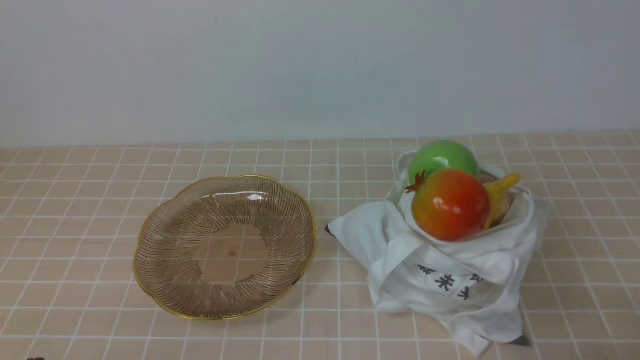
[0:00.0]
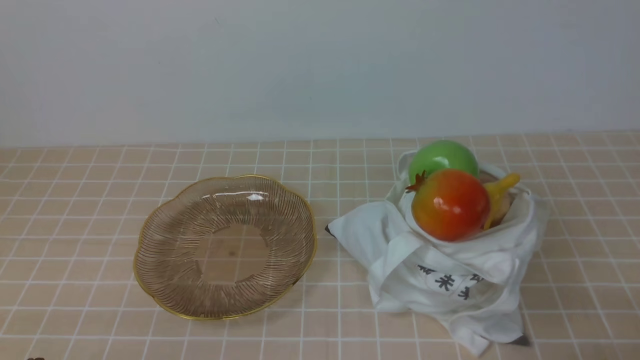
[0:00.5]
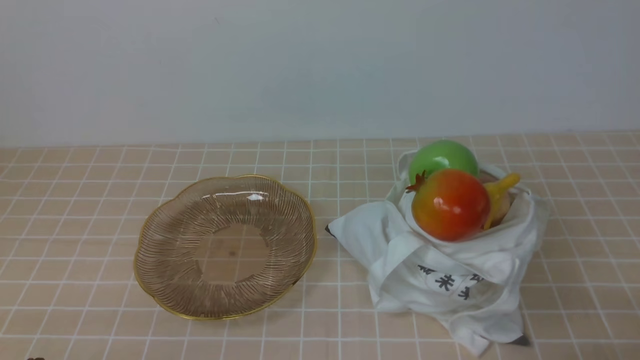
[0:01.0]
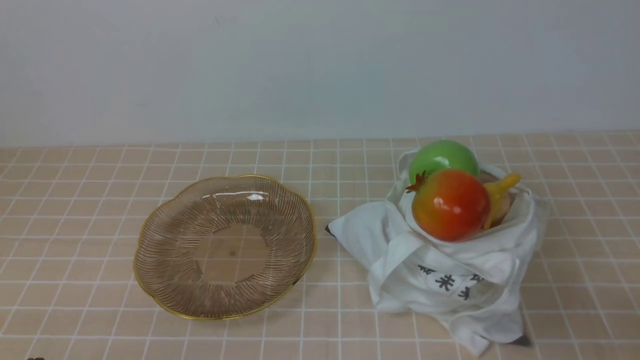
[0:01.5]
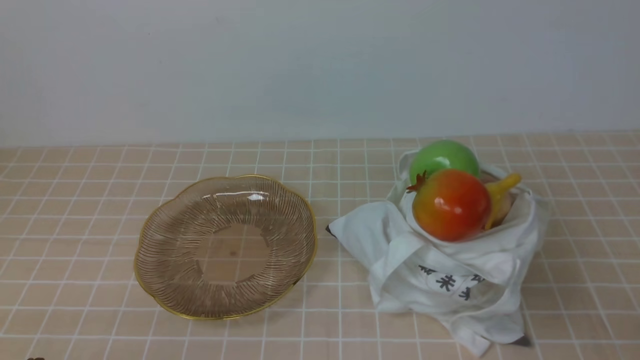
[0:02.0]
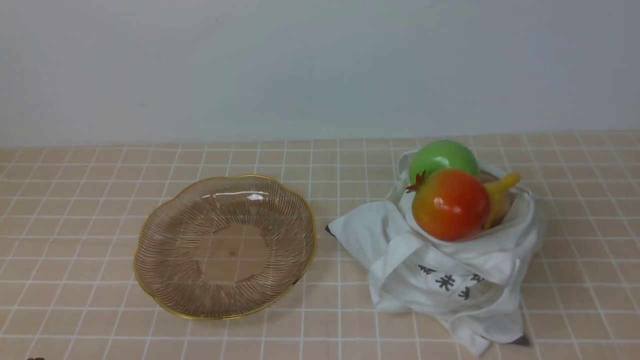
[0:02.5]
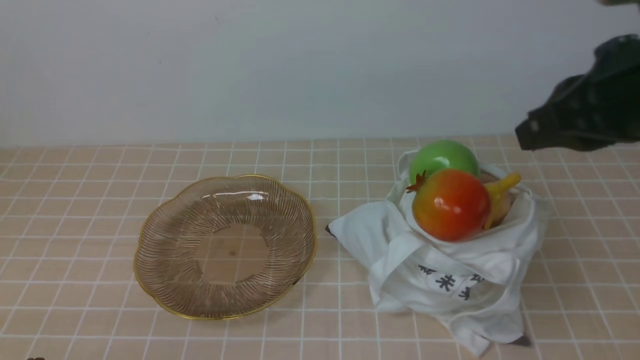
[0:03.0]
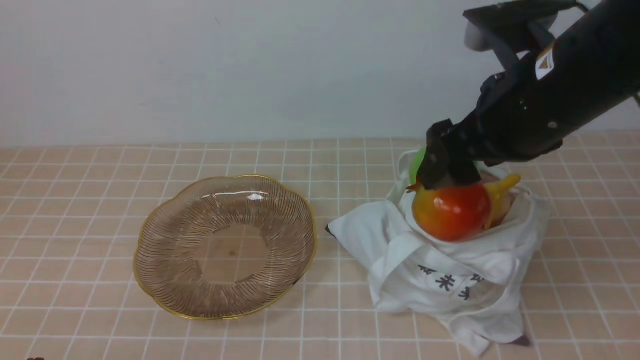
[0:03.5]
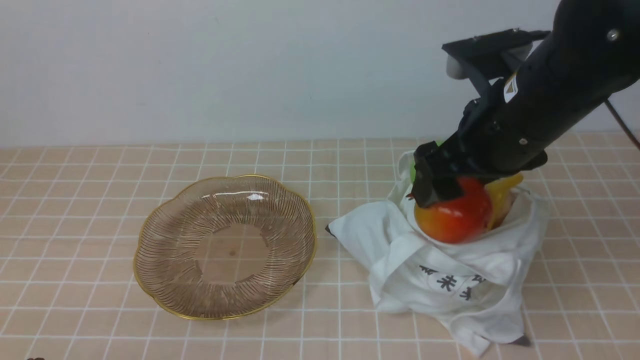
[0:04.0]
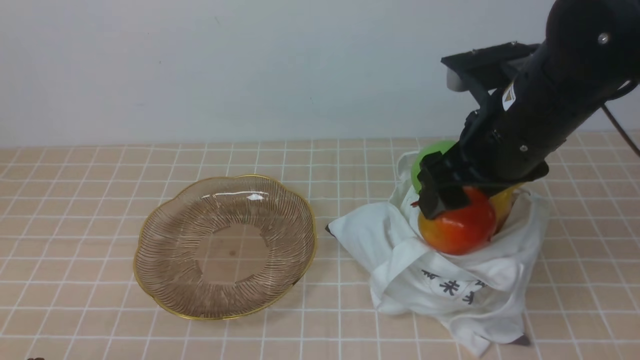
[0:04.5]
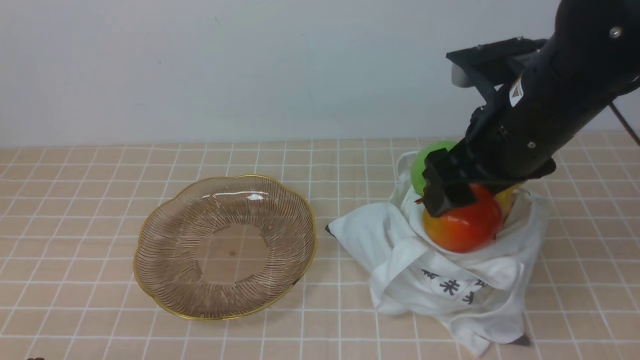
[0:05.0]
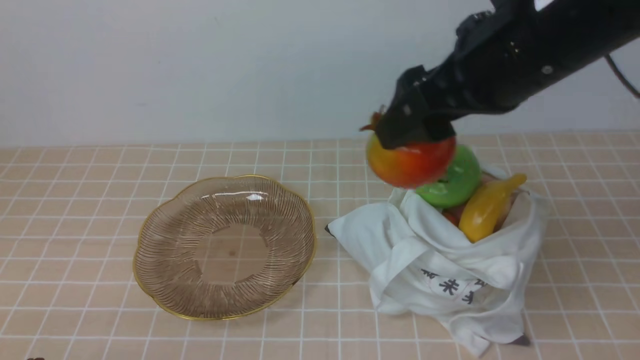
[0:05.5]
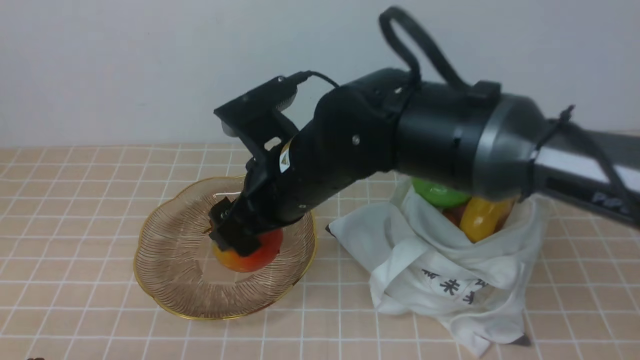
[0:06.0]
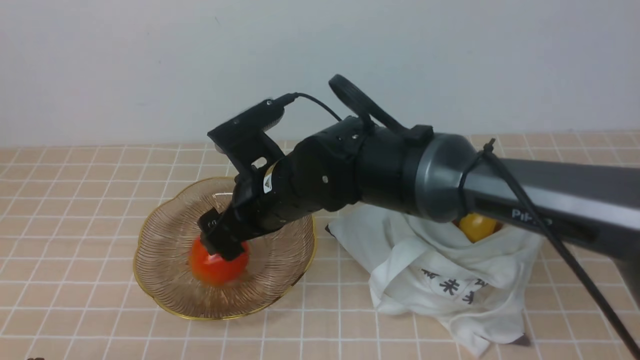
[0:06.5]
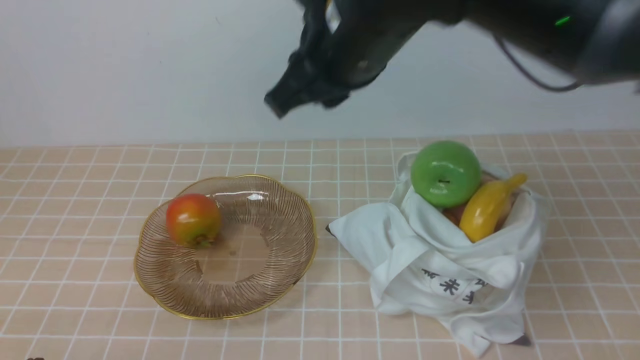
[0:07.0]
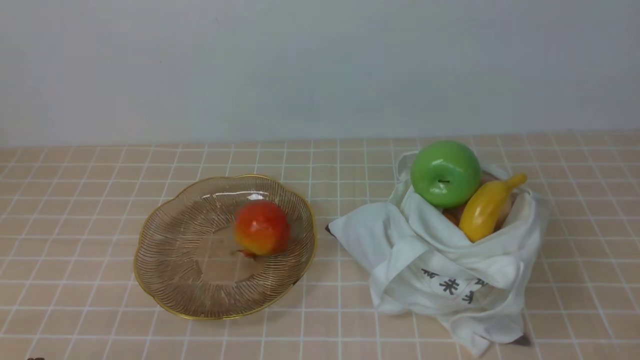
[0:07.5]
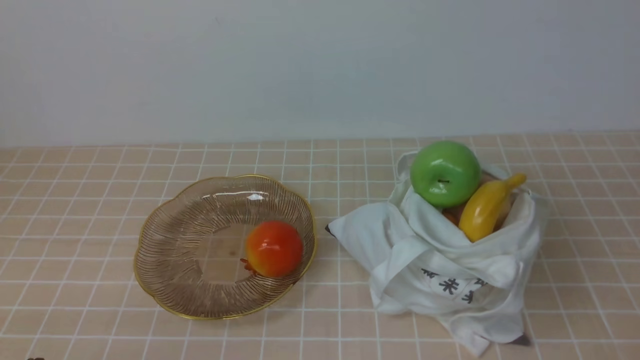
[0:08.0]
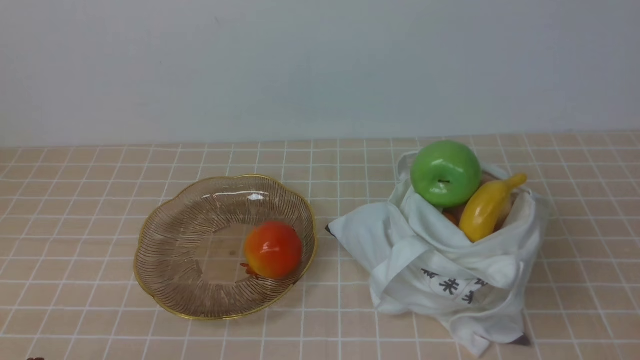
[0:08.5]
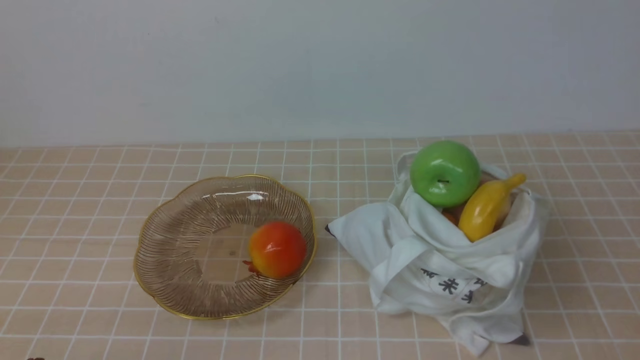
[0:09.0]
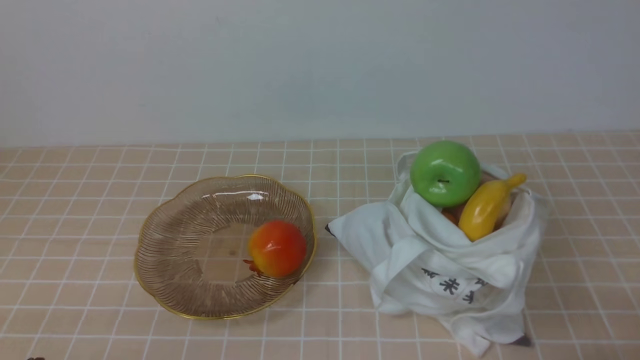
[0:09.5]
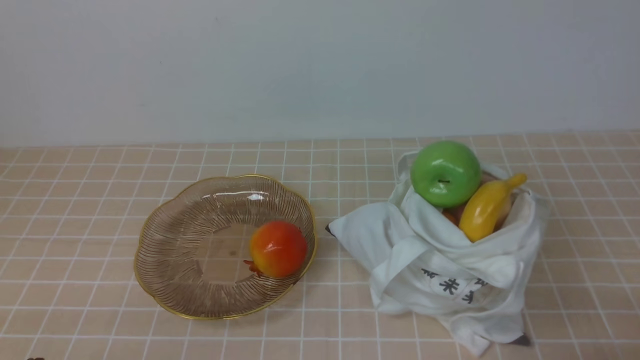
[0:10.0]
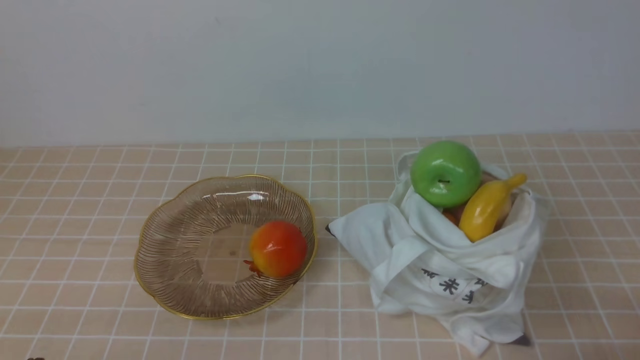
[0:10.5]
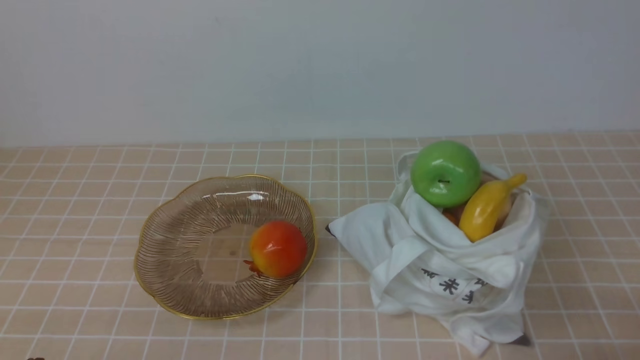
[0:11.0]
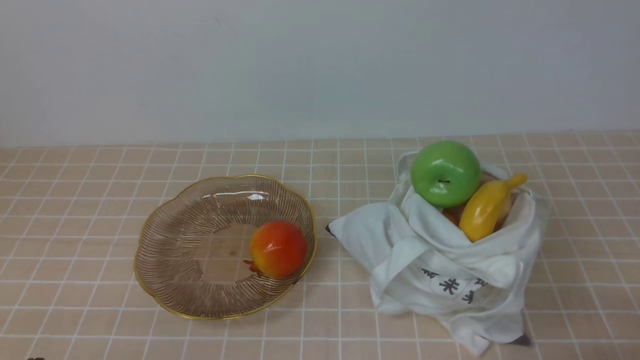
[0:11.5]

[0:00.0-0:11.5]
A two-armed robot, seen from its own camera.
Step, 0.0 to 5.0 s: use the right arm to grab a pomegranate from the bag.
Step, 5.5 to 6.5 s: use the right arm to put the pomegranate into the empty plate on the left.
2.0 to 4.0 s: The right gripper is displaced forward and to the left by some 30 cm, and opens.
4.0 to 6.0 s: The right gripper travels to the left by approximately 15 cm.
6.0 to 7.5 s: The right gripper shifts approximately 35 cm upward, to the right and backward, and closes up.
9.5 to 11.5 s: Both grippers stay put.

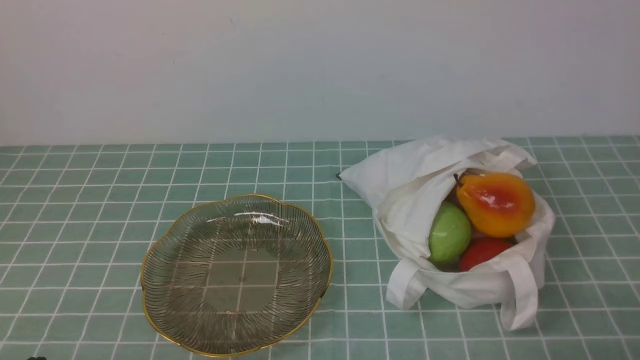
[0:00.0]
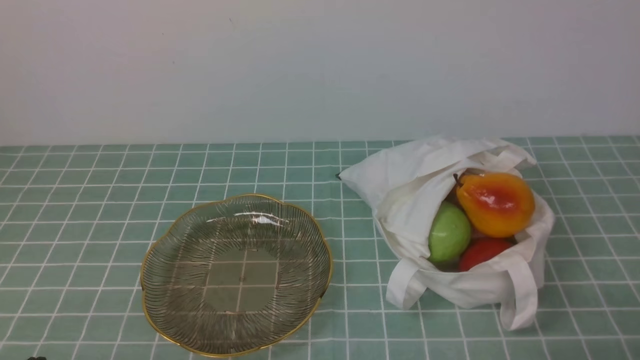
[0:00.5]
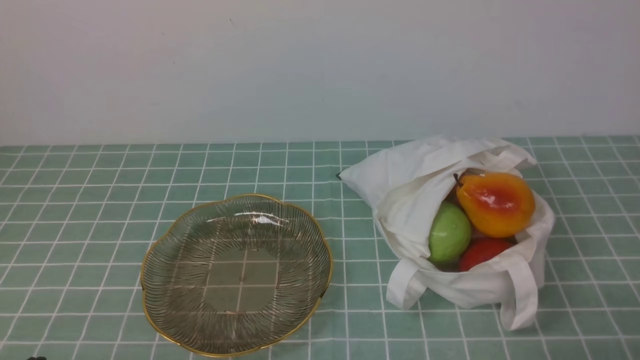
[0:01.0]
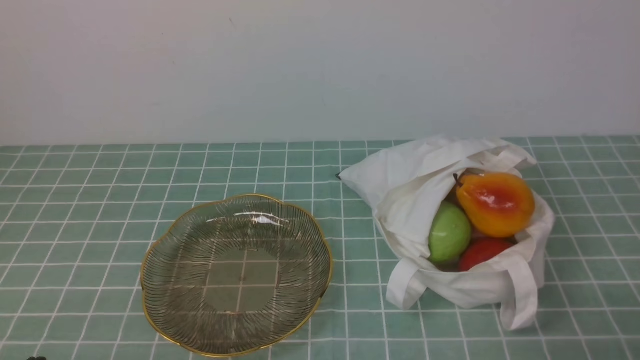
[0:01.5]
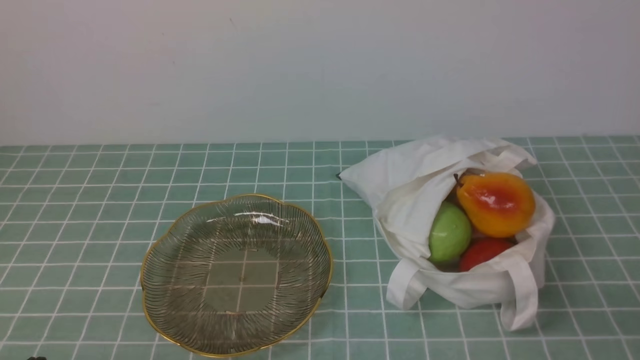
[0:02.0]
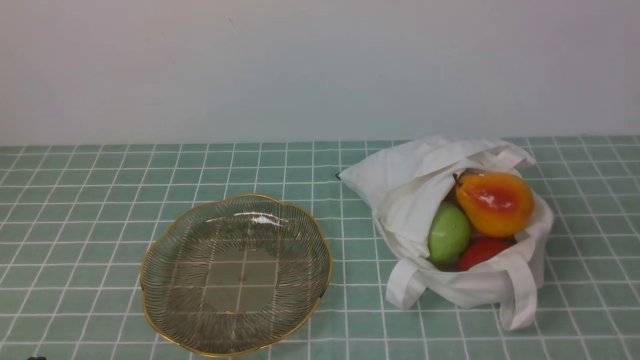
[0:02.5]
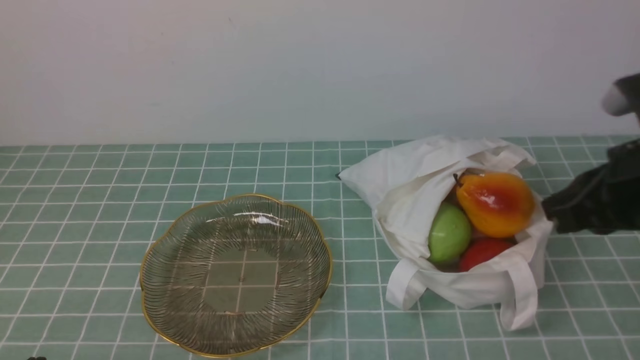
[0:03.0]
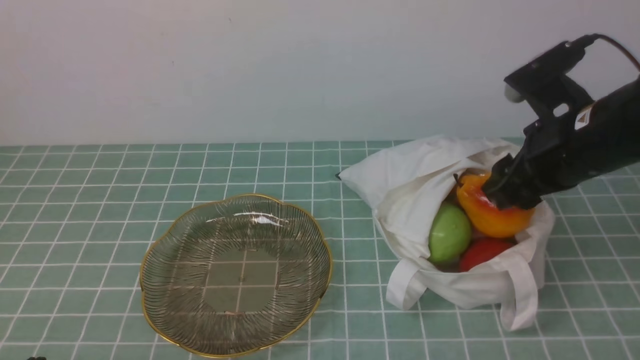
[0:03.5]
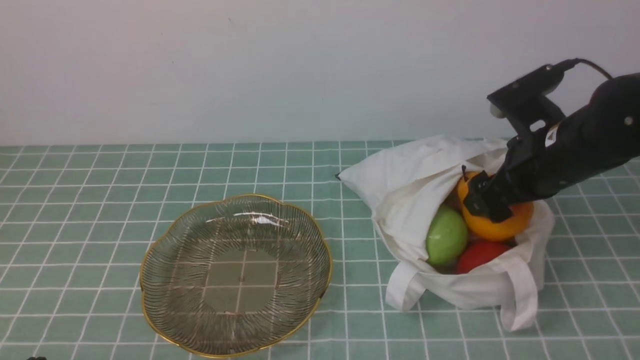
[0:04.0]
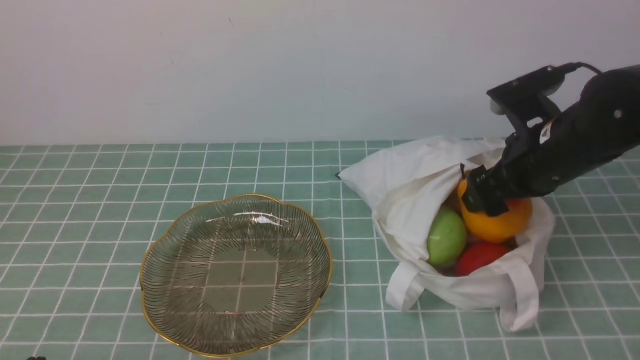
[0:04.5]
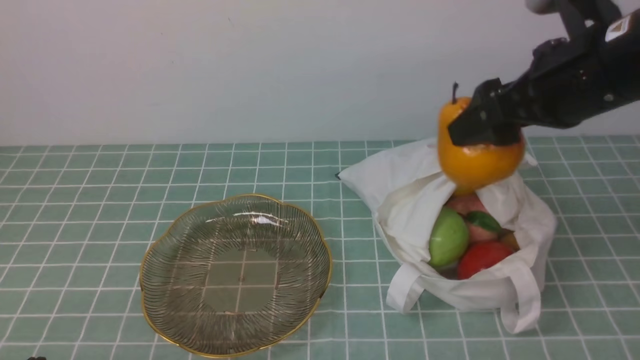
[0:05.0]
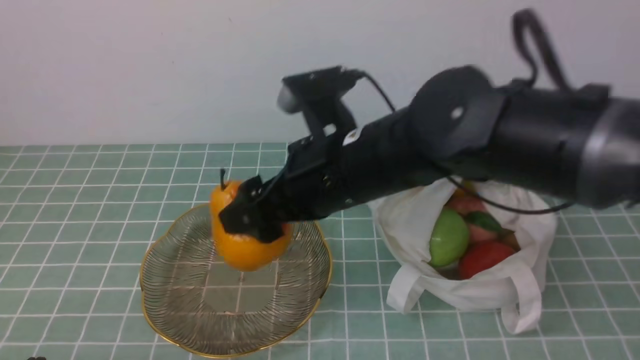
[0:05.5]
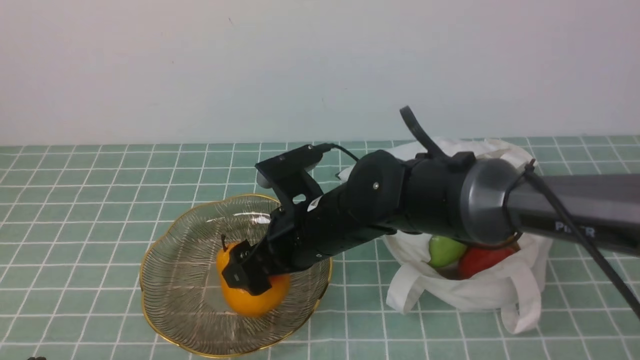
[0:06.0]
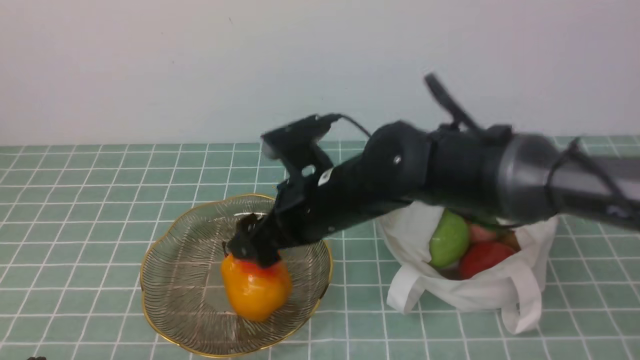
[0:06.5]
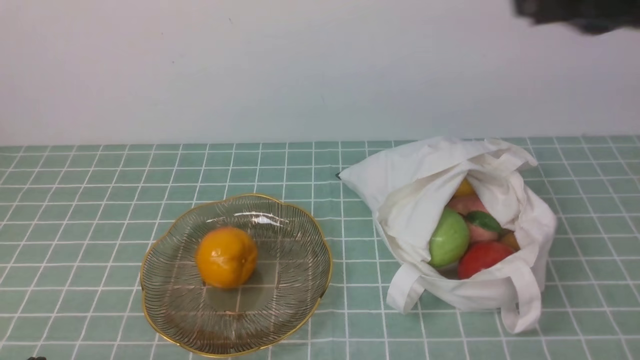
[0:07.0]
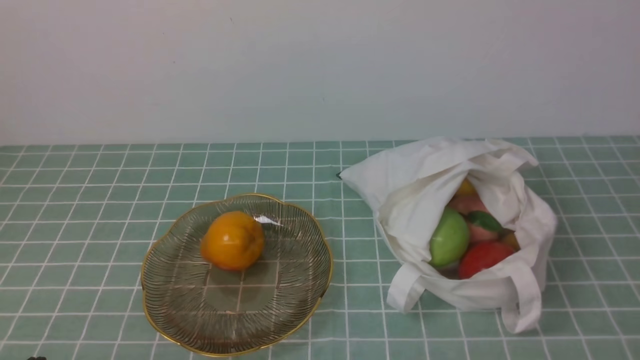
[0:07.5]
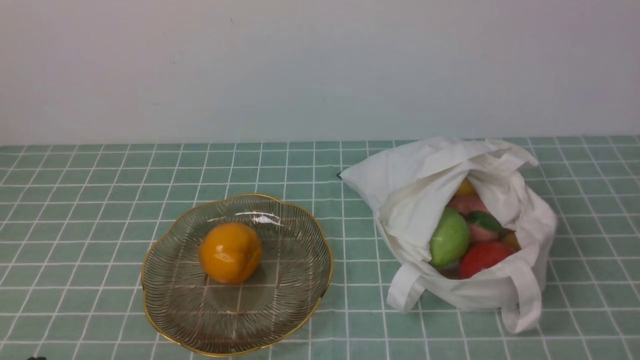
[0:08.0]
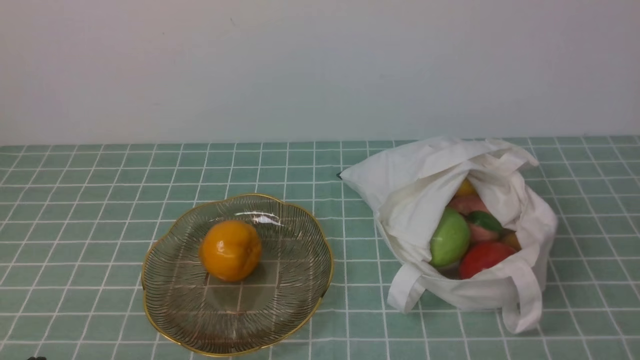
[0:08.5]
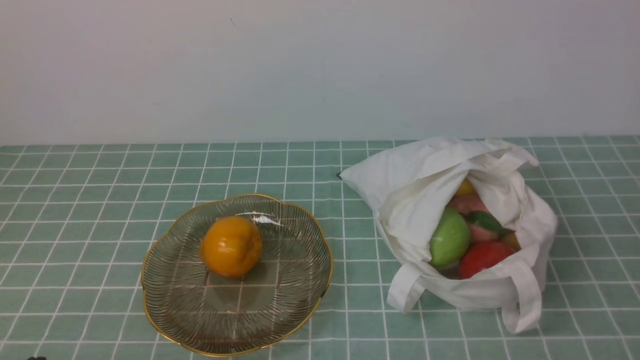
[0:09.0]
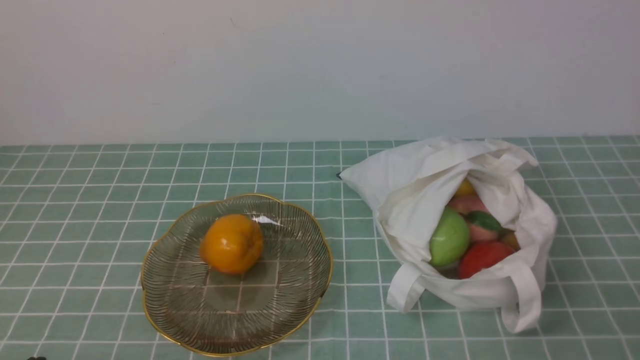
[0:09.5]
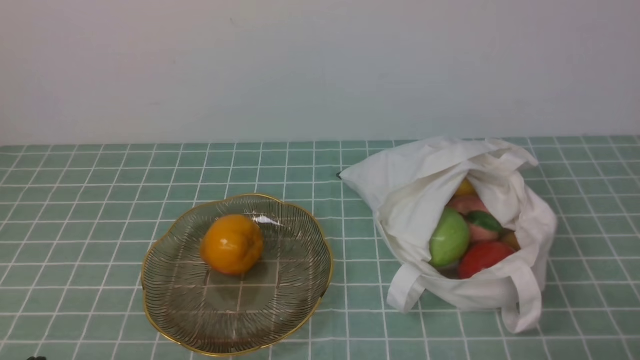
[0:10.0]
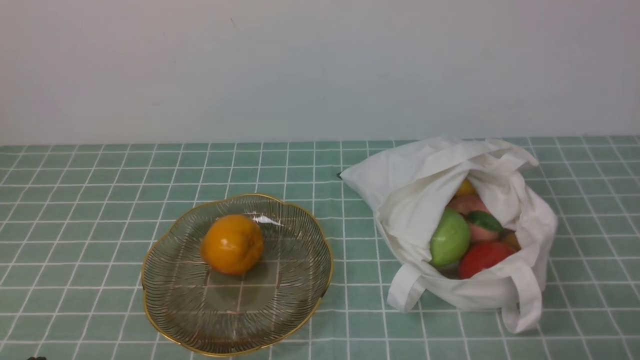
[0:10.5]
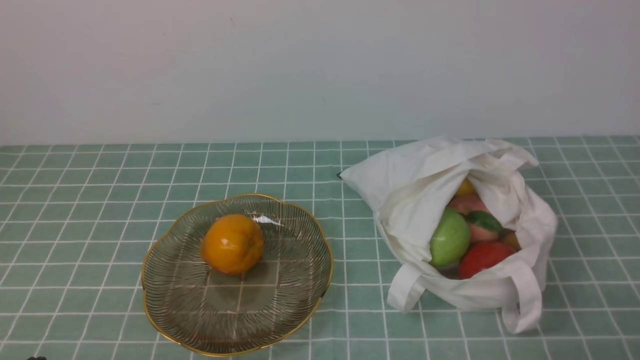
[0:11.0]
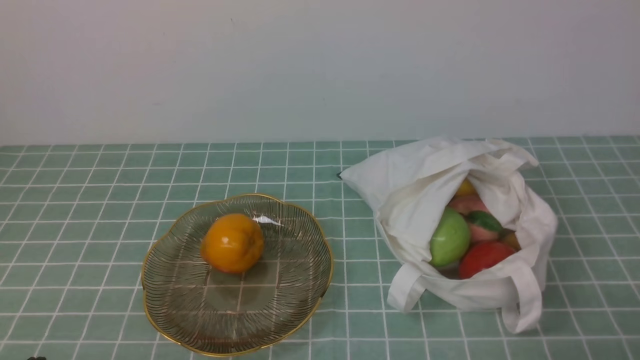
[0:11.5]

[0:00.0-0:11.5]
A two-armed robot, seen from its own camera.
Step, 0.0 to 4.0 s: use the right arm to grab a pear from the bag.
Step, 4.5 to 6.0 s: use the right arm to put the pear into the empty plate on the left.
2.0 to 4.0 s: The right gripper moves forward, some 25 cm, and opens.
4.0 to 6.0 s: The right gripper shifts roughly 25 cm to the left.
6.0 to 7.5 s: The right gripper heads to the right, backward and upward, covering roughly 40 cm, and closes up.
